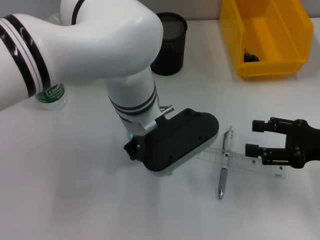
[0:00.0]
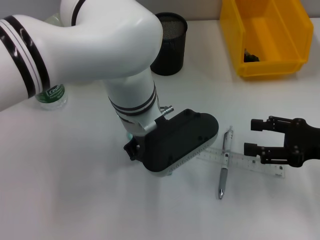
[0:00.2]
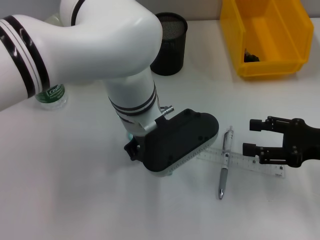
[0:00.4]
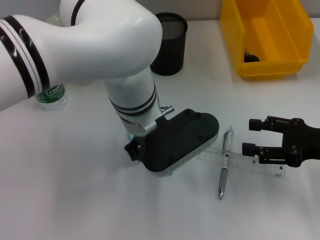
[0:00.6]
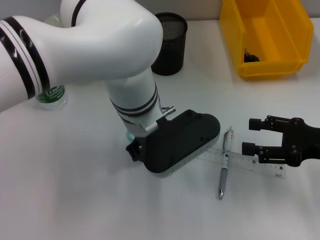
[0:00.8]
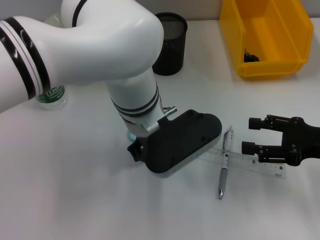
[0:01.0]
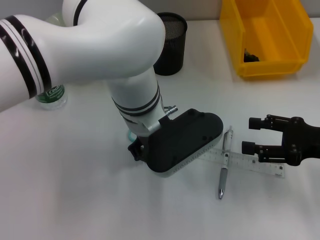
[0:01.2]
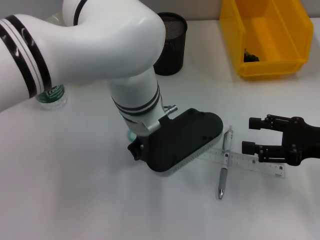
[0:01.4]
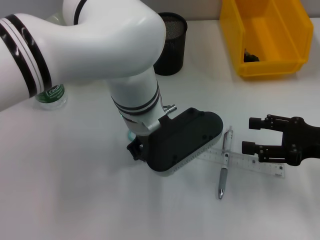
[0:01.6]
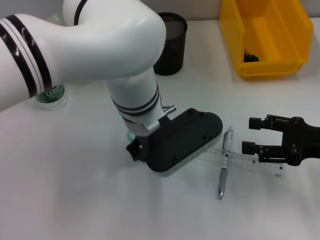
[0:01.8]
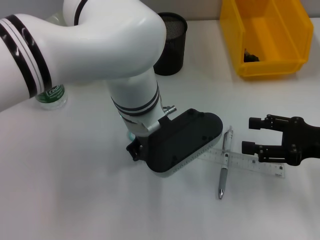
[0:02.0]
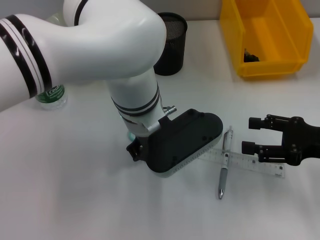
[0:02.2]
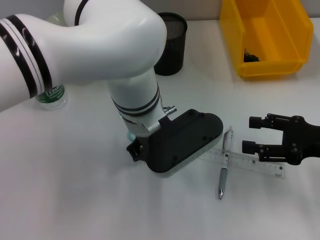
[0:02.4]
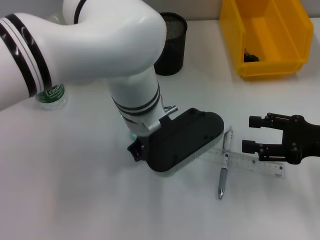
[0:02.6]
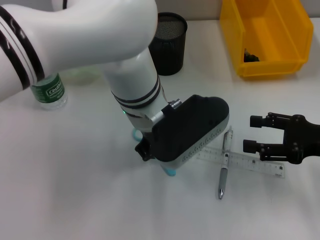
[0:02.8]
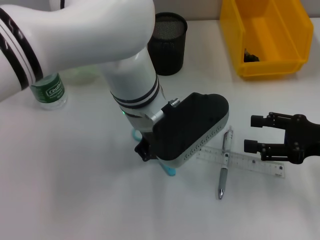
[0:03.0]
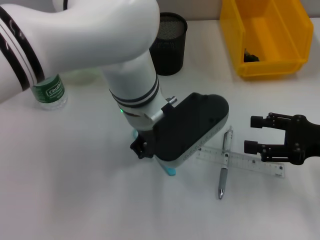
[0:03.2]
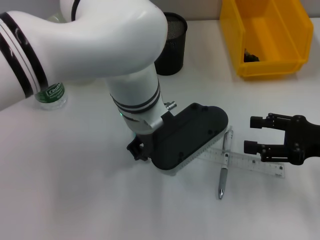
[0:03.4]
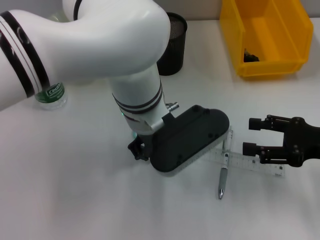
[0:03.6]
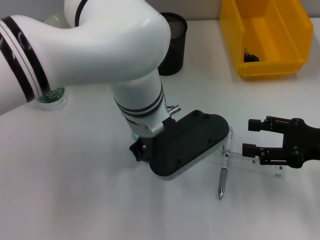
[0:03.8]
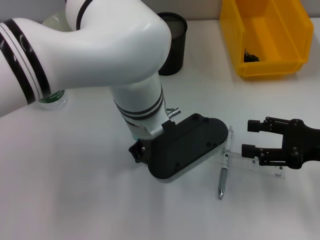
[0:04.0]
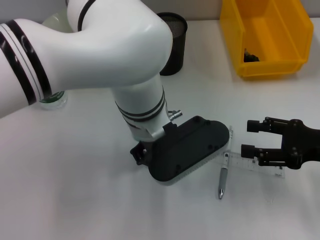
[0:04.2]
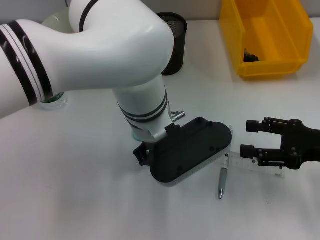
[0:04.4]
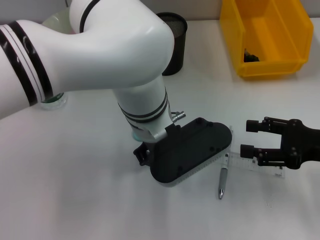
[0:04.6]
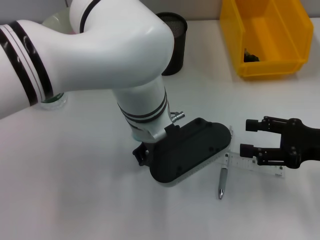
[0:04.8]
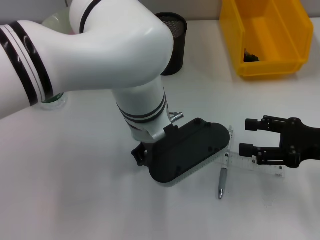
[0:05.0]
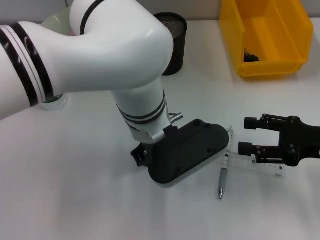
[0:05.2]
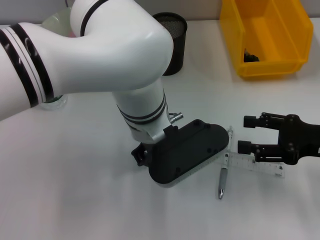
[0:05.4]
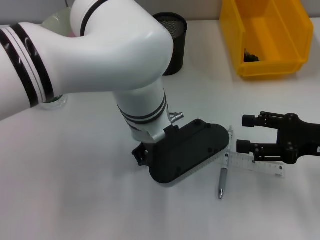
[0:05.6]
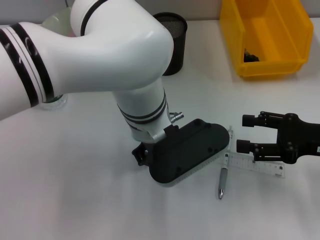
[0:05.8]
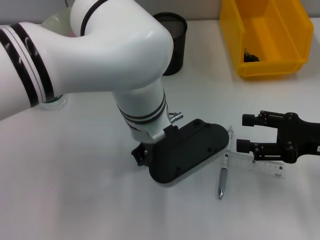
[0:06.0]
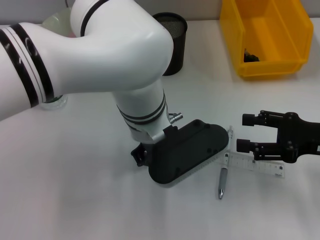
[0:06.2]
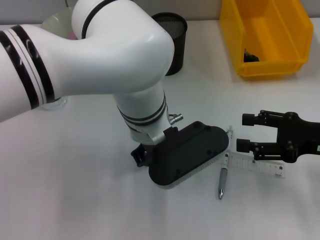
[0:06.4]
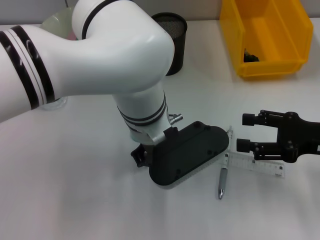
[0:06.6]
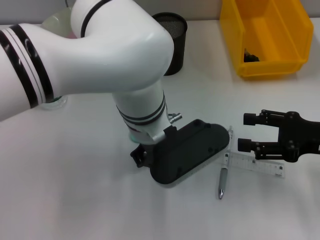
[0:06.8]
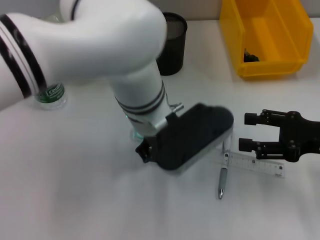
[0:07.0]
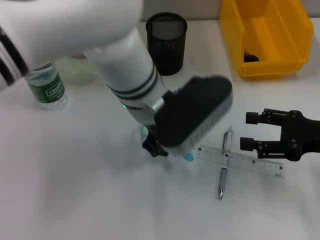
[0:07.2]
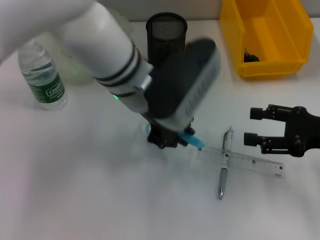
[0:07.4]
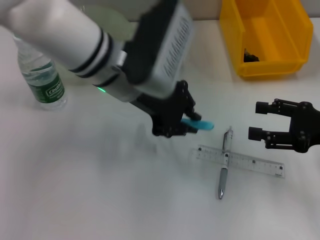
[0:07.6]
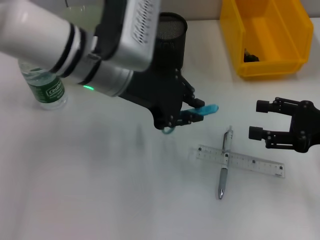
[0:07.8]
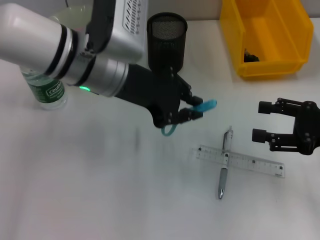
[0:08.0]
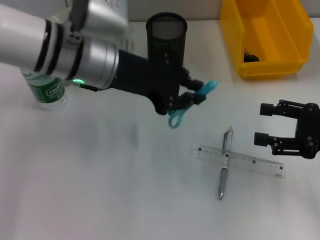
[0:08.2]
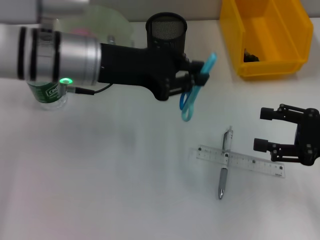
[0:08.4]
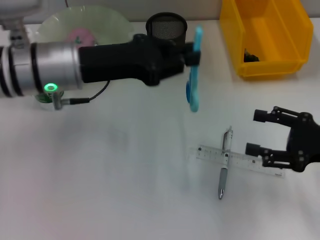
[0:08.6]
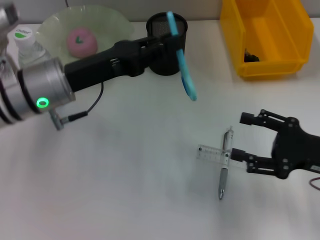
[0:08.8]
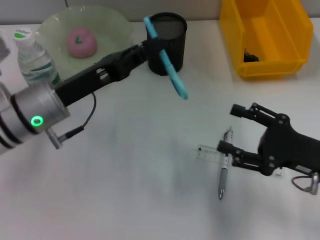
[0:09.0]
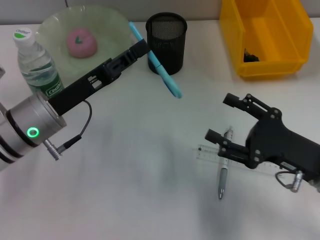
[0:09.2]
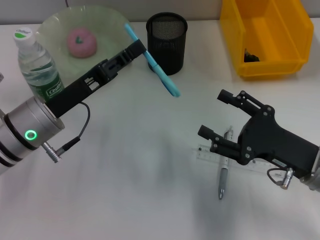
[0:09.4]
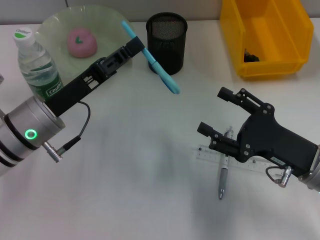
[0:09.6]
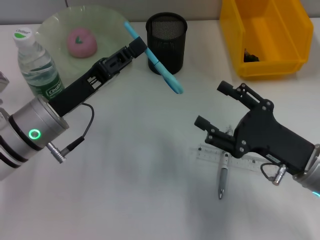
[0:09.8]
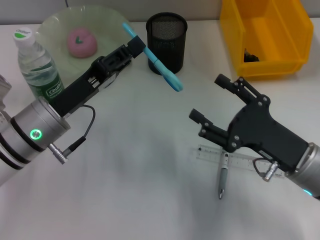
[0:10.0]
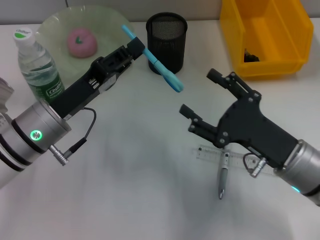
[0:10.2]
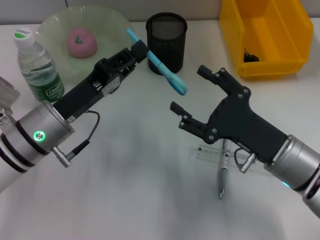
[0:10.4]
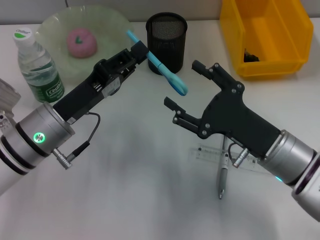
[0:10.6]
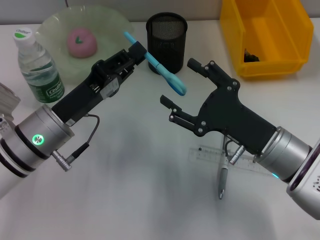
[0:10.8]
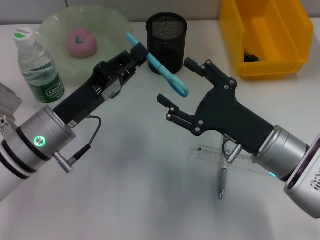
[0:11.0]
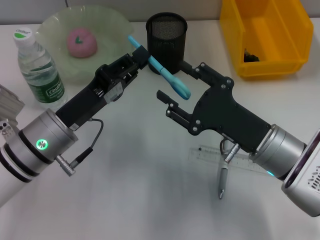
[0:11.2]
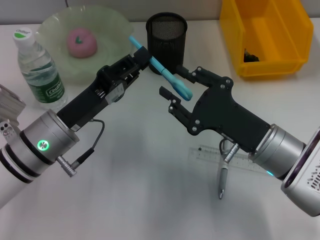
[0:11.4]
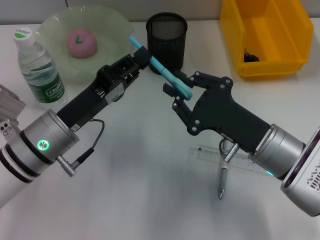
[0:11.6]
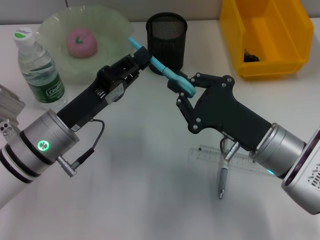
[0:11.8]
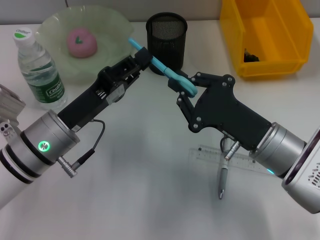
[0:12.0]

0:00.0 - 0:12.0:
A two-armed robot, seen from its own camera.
Step, 0:00.0 - 0:06.4: Grab the blue scissors with the left hand.
0:00.0 - 0:01.6: Both grippers stay put.
0:01.6 - 0:03.0: The grippers make only small movements.
0:04.4 - 0:06.0: The two grippers keep their place.
0:06.0 - 0:07.6: The left gripper shifts roughly 10 cm to the left and upward.
0:07.6 - 0:09.0: The left gripper shifts approximately 15 cm to the left and downward, while the right gripper shifts by about 5 cm.
0:09.0 - 0:10.4: The right gripper moves to the left, some 10 cm.
0:10.4 - 0:12.0: The right gripper closes up.

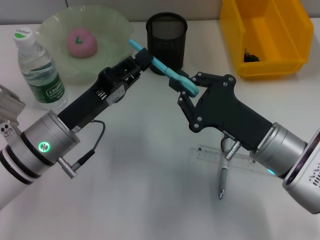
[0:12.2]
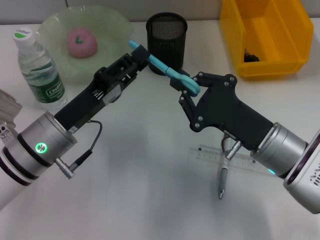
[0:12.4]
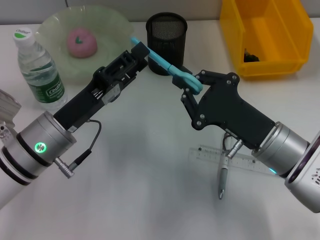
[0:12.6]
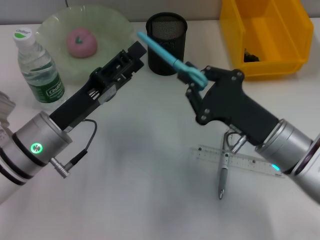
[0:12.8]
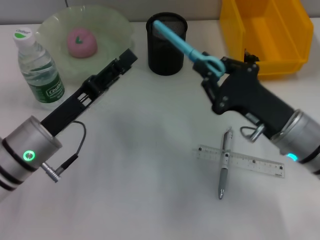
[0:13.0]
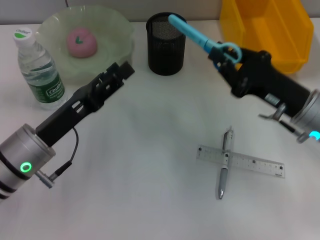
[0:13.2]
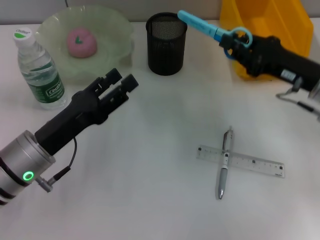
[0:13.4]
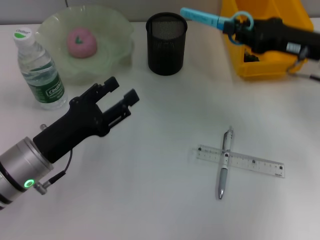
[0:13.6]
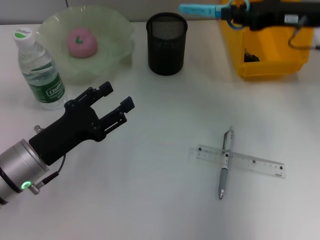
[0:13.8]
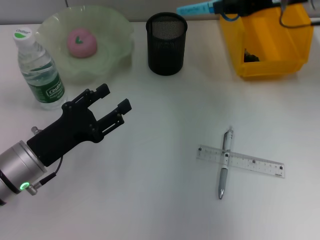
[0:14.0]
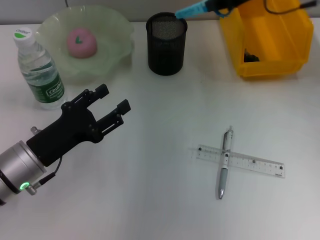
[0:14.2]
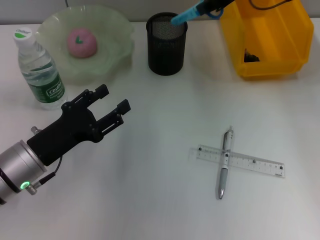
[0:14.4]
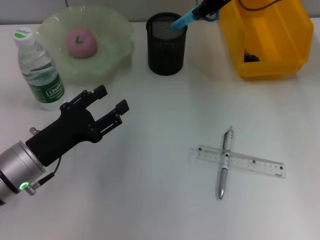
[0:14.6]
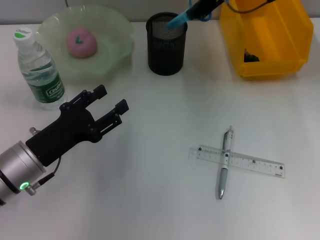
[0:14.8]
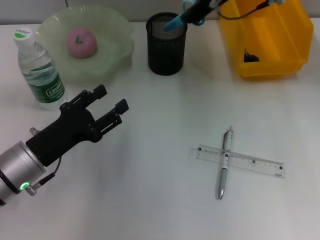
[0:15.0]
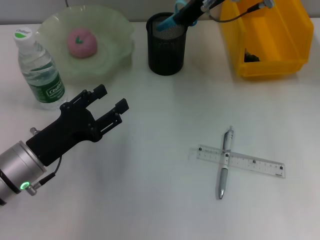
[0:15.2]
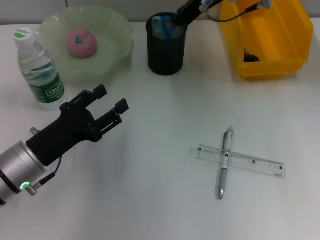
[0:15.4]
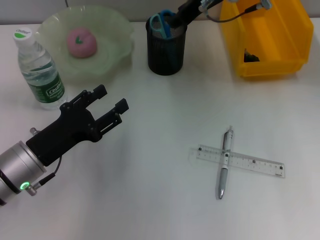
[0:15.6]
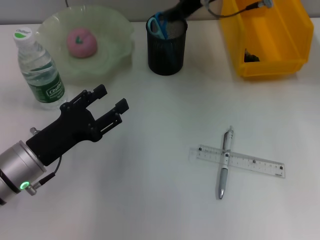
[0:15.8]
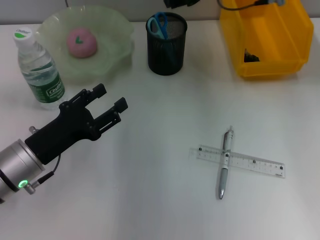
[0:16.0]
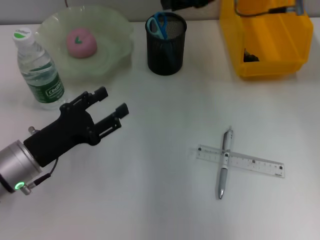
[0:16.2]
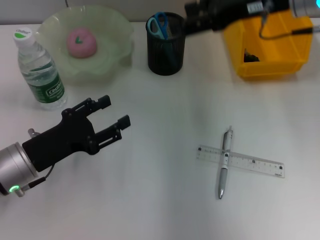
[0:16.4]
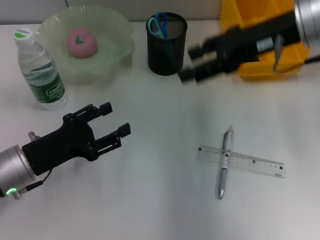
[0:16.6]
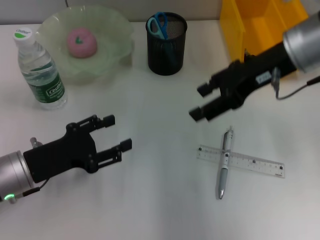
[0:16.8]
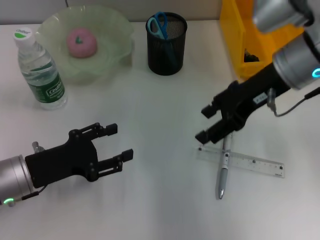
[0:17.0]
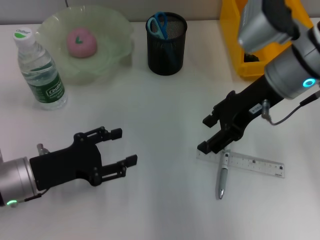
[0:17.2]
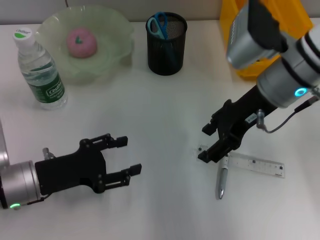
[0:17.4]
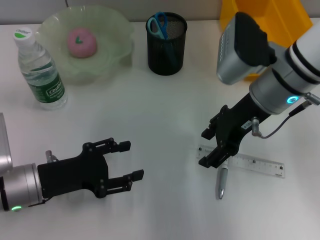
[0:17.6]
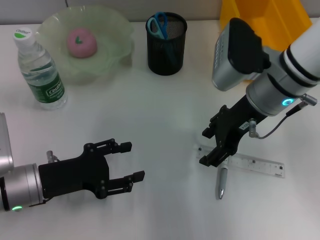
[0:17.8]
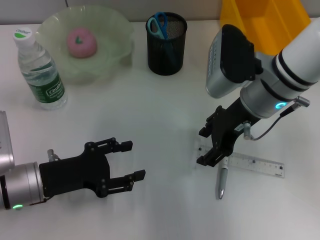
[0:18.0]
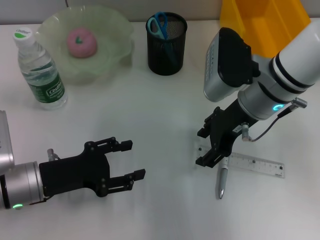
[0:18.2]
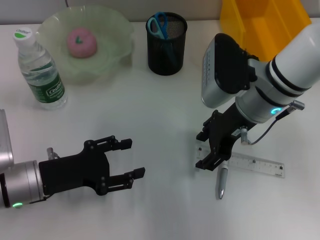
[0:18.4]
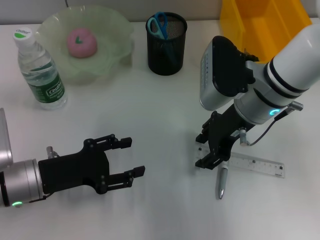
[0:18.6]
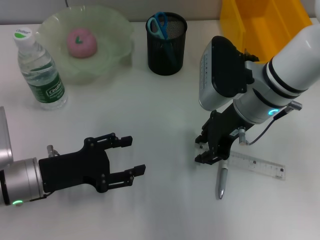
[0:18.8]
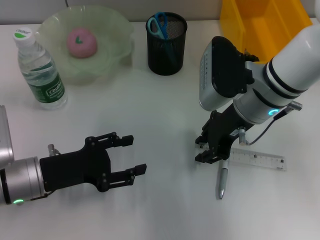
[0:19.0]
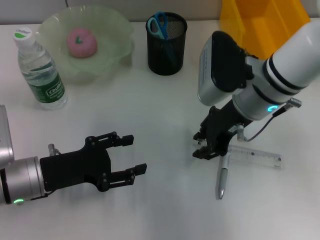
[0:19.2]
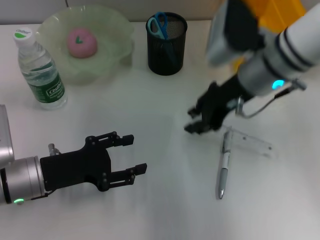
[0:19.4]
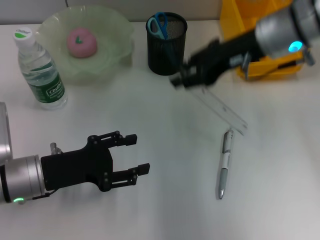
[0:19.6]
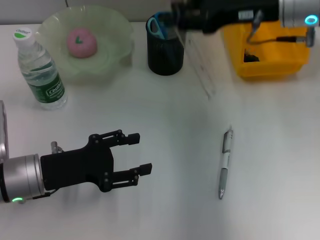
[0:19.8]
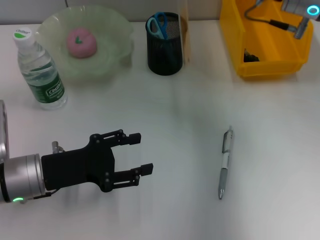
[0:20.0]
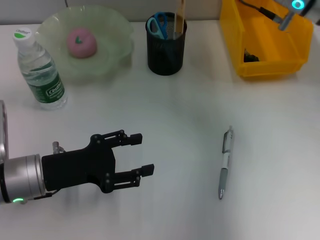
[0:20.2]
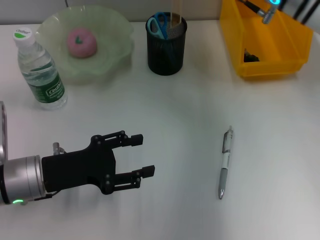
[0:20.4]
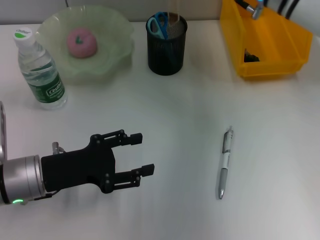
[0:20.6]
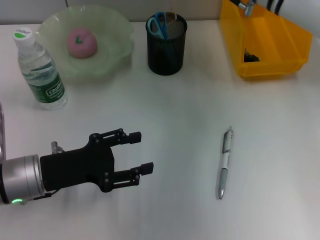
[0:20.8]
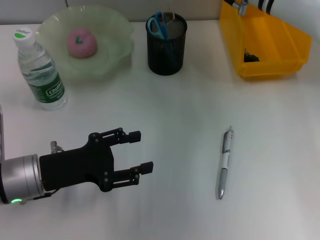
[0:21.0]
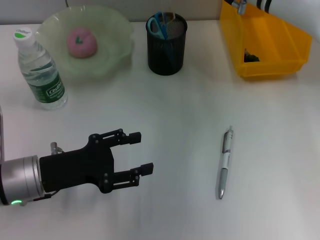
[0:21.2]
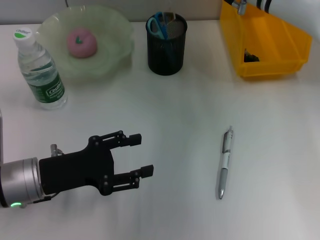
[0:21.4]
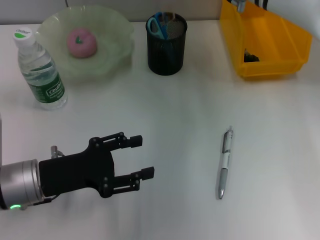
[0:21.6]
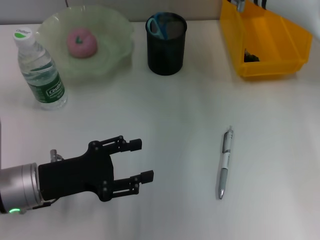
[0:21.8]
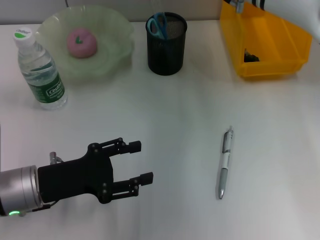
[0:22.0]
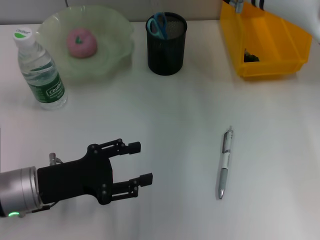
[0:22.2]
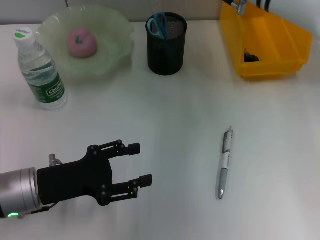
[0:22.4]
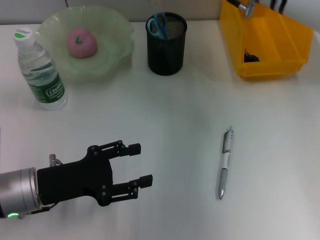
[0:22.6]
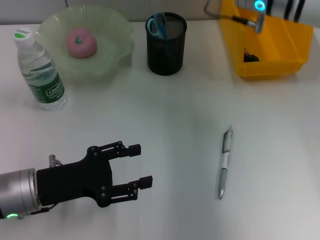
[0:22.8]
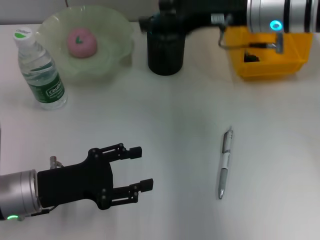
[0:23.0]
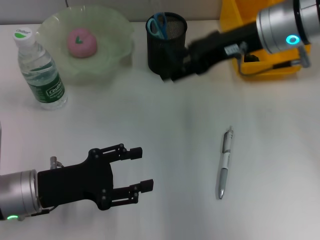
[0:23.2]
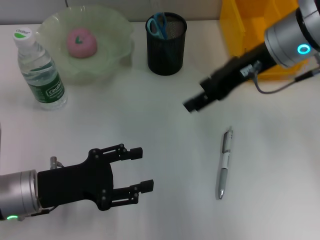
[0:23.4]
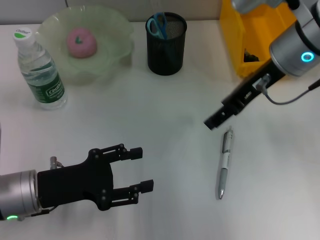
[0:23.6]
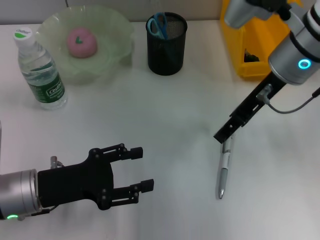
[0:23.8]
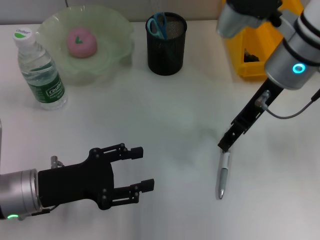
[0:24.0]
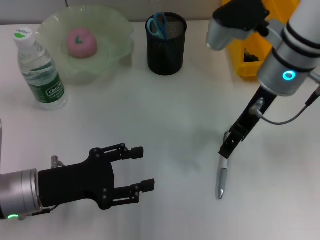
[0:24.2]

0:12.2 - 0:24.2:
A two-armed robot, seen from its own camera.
Step, 0:12.8 - 0:15.6: Place the blue scissors into the pen holder with the right hand.
Step, 0:15.8 - 0:18.8: Grab the ruler with the right hand.
Step, 0:19.0 - 0:22.4: Place the ruler into the pen holder with the right hand.
0:12.2 - 0:13.8: The right gripper moves forward, upward and to the right, roughly 20 cm, while the left gripper shifts by about 5 cm, and opens up.
0:13.8 - 0:15.2: The right gripper shifts approximately 15 cm to the left and forward.
0:15.2 - 0:16.6: The right gripper travels backward and to the right by approximately 15 cm, and opens its fingers.
0:16.6 - 0:18.2: The right gripper shifts some 10 cm downward and to the left.
0:18.2 - 0:19.8: The right gripper heads upward, covering some 10 cm, and closes up.
0:19.8 - 0:21.2: The right gripper heads forward and to the left, covering roughly 10 cm.
0:21.2 - 0:22.6: The right gripper opens up.
0:22.6 - 0:24.2: The right gripper shifts some 5 cm backward.
